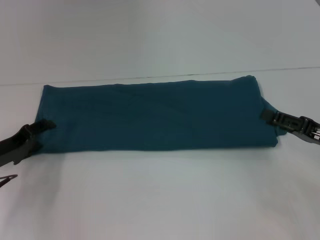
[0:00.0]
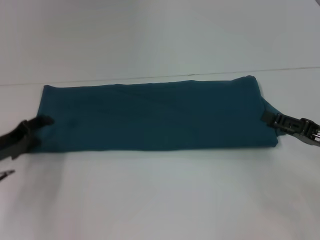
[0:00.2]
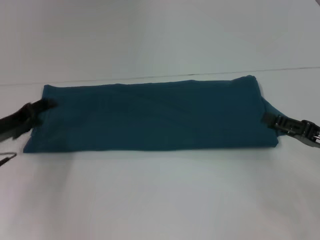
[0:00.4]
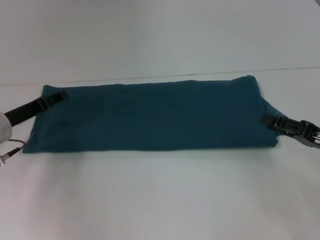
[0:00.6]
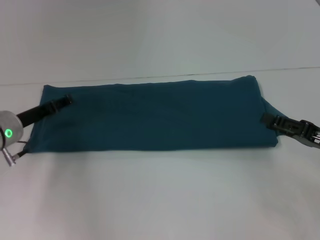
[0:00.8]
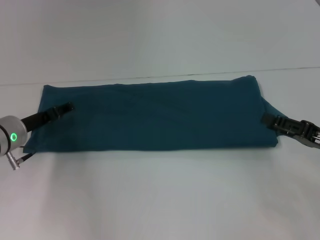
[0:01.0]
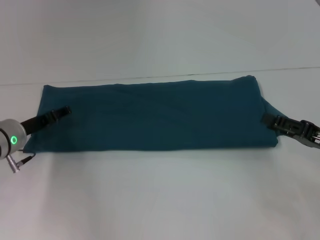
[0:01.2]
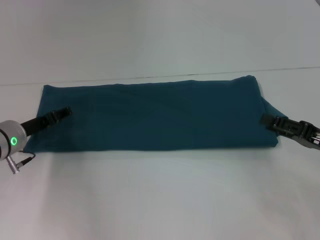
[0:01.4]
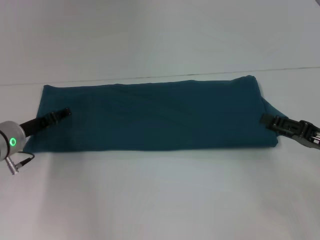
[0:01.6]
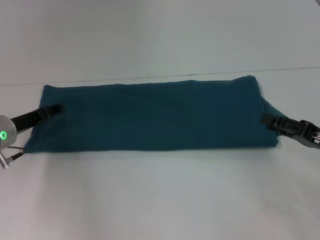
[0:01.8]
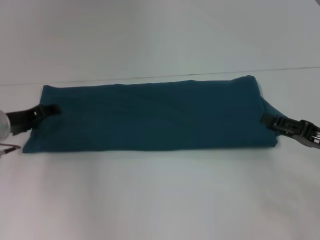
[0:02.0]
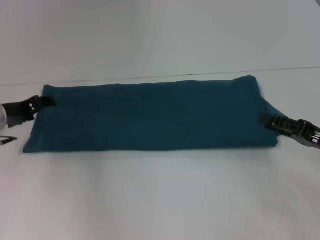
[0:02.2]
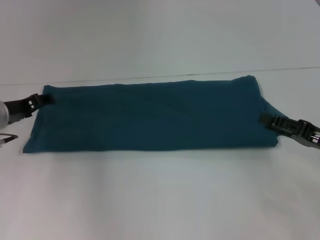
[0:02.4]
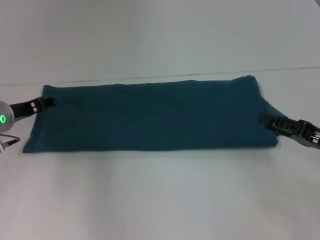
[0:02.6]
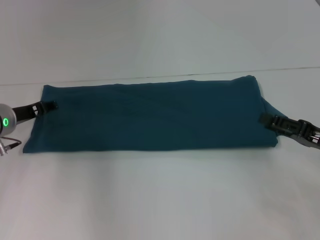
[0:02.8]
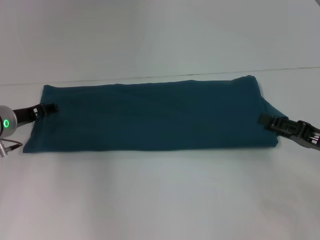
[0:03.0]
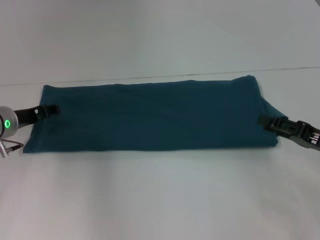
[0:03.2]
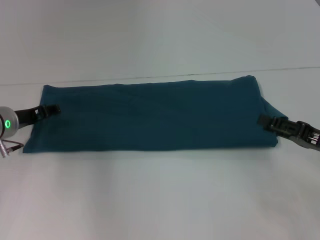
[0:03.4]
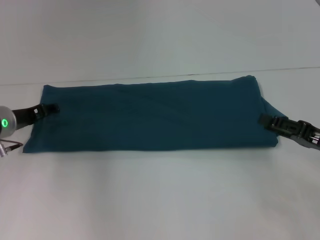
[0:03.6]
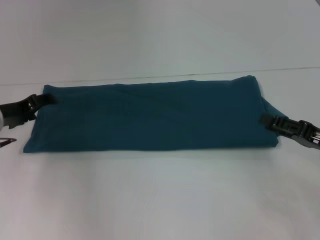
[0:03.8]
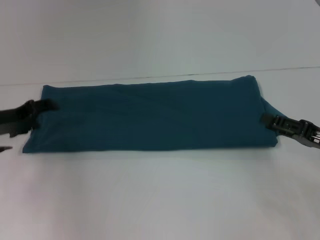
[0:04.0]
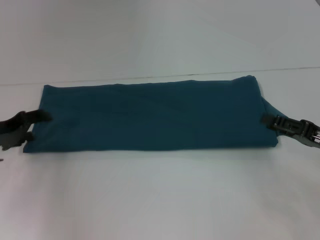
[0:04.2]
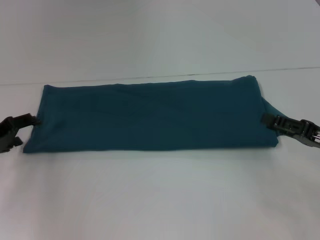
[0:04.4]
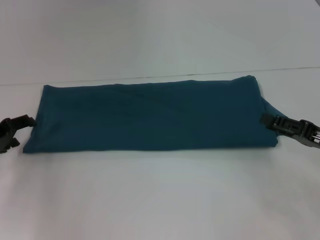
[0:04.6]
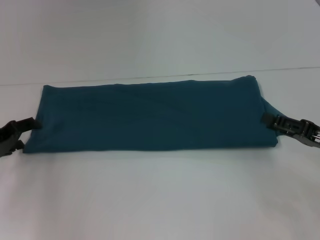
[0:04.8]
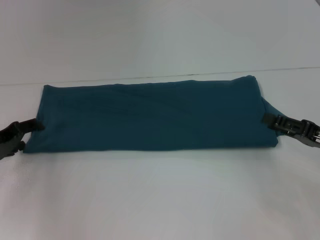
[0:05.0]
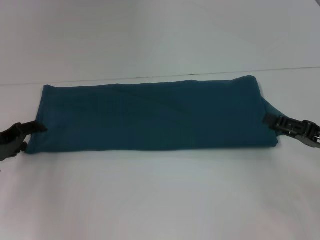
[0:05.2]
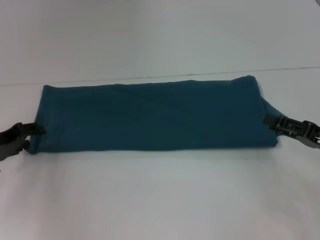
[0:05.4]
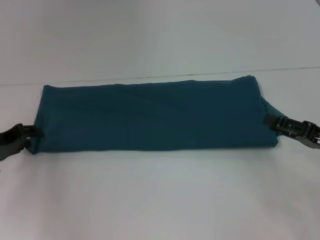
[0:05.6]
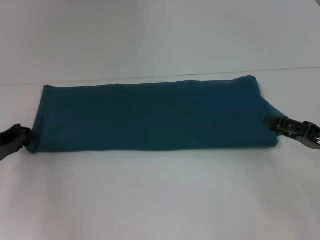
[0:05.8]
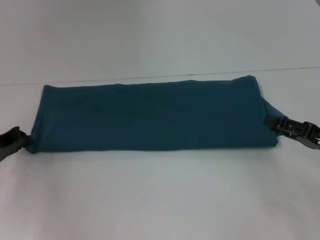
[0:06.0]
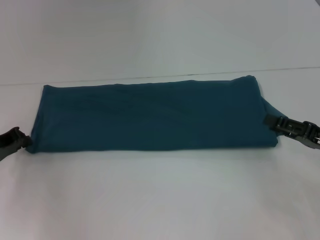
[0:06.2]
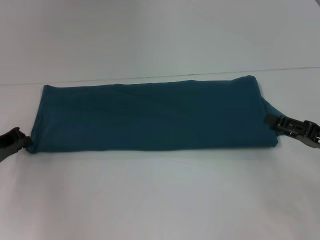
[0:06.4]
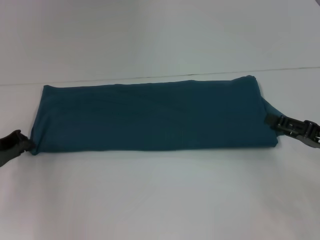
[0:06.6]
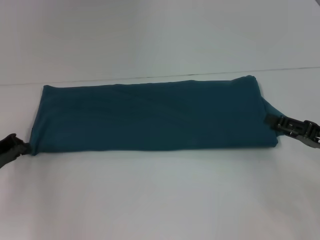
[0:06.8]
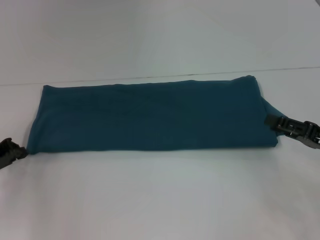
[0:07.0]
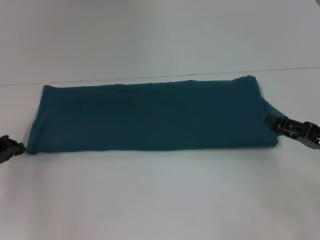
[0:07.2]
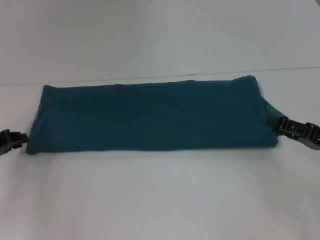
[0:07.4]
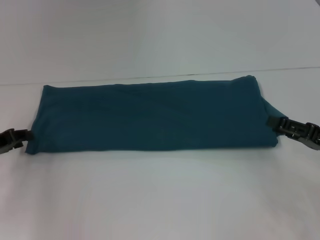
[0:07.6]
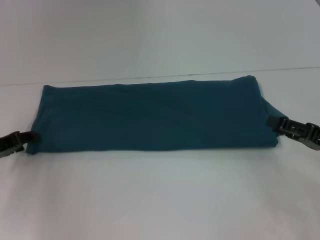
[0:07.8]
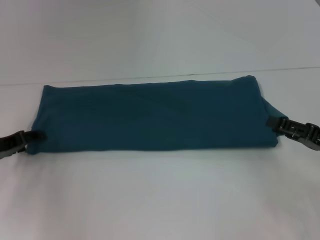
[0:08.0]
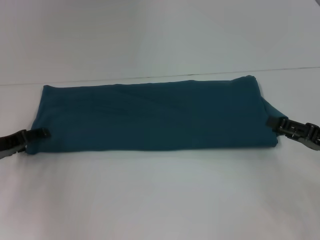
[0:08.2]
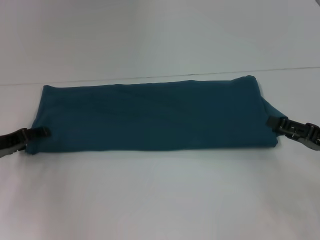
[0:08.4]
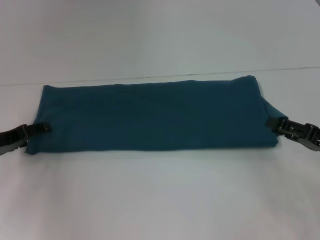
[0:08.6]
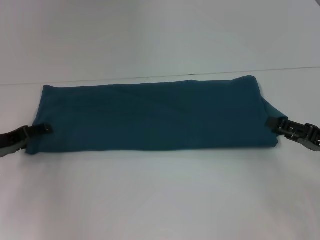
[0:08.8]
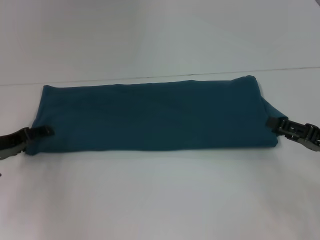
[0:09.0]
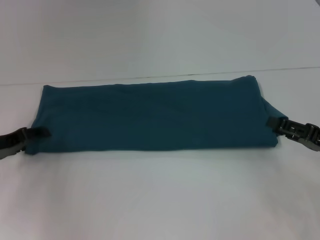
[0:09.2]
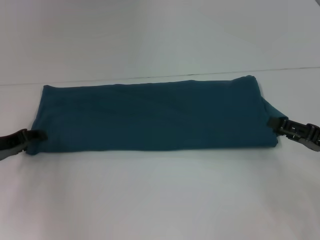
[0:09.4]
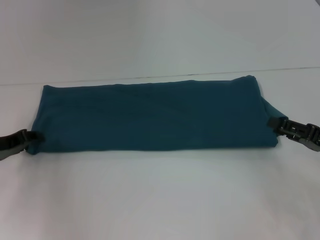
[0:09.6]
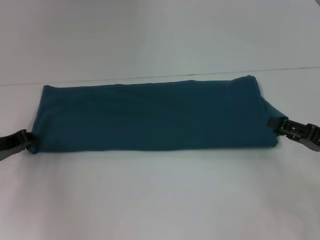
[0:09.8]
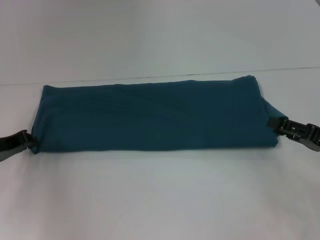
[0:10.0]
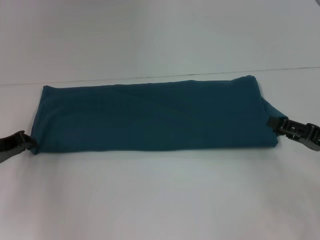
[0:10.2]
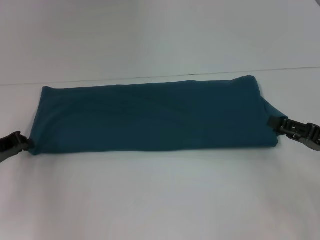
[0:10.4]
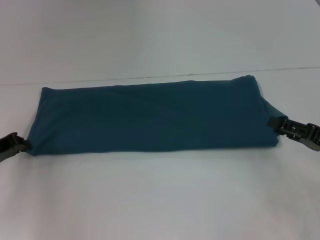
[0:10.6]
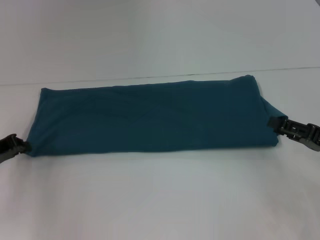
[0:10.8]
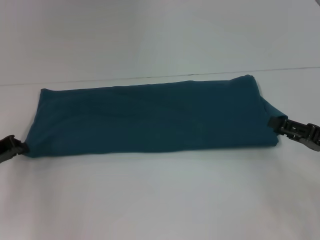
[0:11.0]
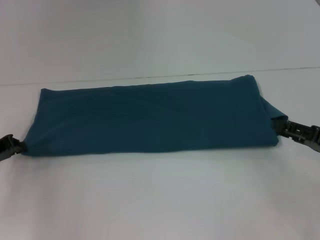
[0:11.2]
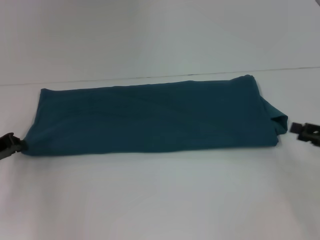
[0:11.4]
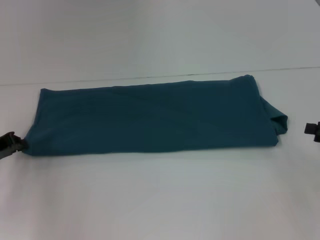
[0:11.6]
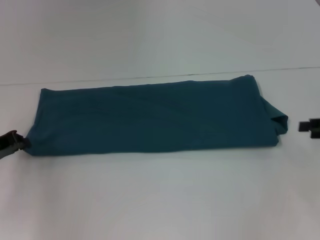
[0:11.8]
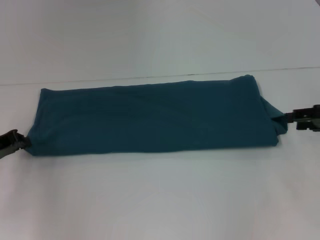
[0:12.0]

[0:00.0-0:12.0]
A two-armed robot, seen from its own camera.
0:00.0 to 0:01.6: The left gripper changes place by approximately 5 cm.
0:01.6 to 0:03.0: There are only small adjustments of the grippers.
0:03.0 to 0:04.4: The left gripper travels to the left and backward by some 10 cm.
0:04.4 to 0:06.0: The left gripper closes up.
0:07.6 to 0:09.0: The left gripper opens its fingers.
0:09.0 to 0:10.4: The left gripper closes.
0:10.4 to 0:12.0: The right gripper shifts some 5 cm forward.

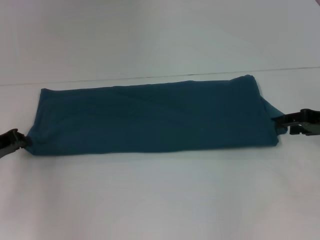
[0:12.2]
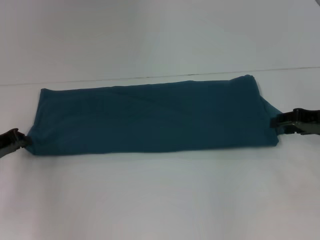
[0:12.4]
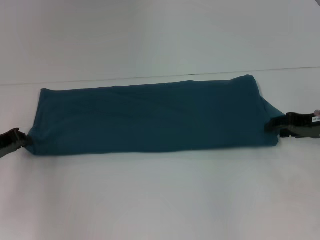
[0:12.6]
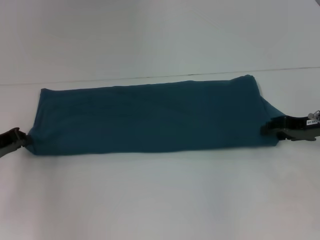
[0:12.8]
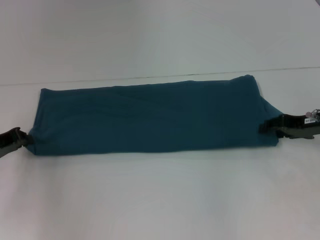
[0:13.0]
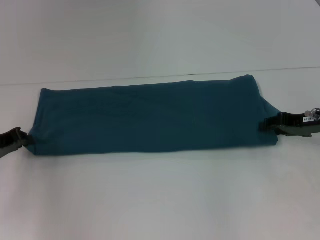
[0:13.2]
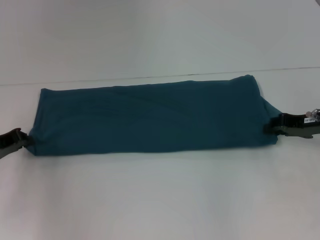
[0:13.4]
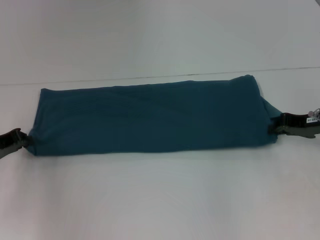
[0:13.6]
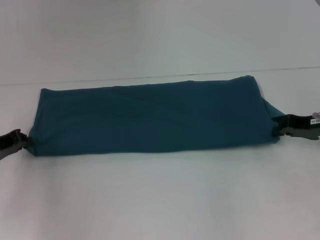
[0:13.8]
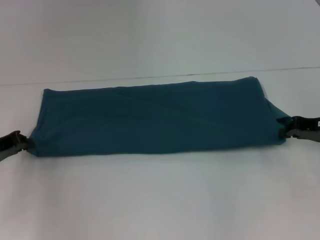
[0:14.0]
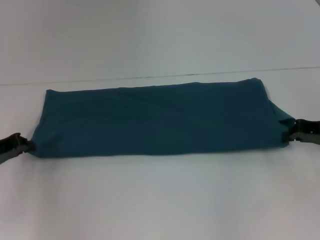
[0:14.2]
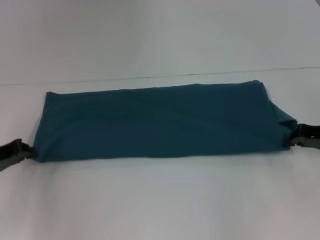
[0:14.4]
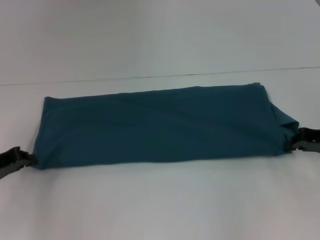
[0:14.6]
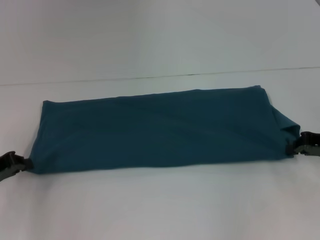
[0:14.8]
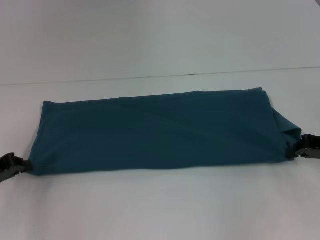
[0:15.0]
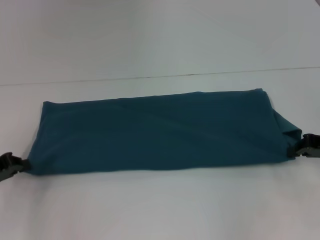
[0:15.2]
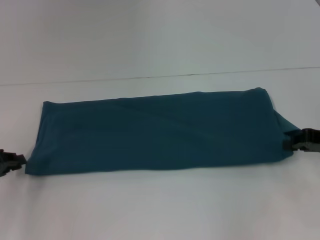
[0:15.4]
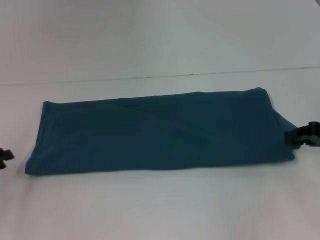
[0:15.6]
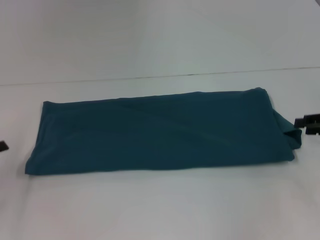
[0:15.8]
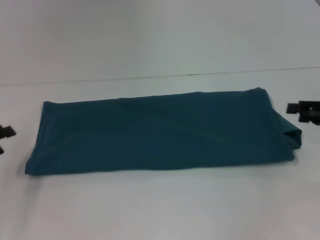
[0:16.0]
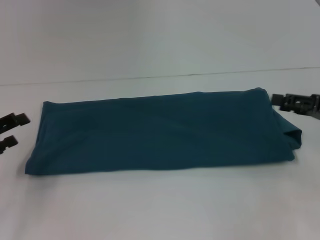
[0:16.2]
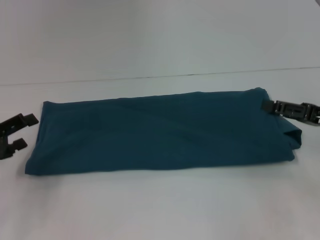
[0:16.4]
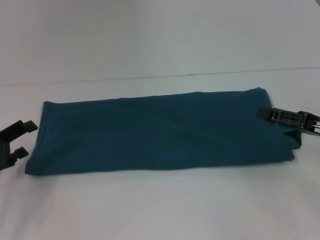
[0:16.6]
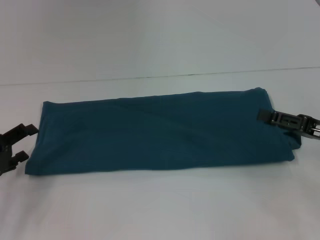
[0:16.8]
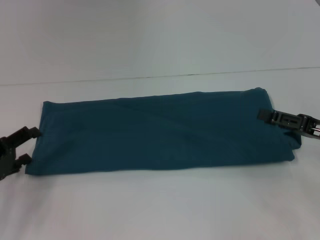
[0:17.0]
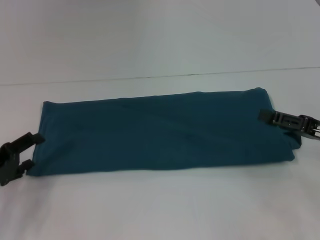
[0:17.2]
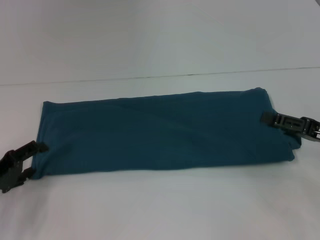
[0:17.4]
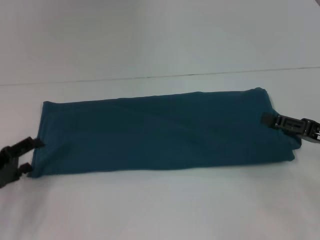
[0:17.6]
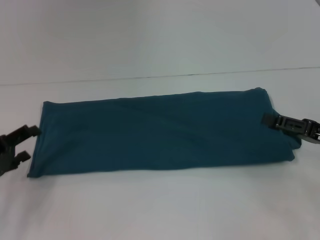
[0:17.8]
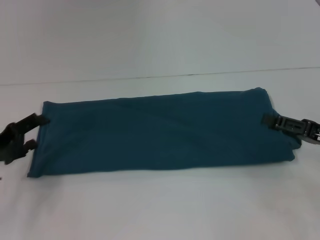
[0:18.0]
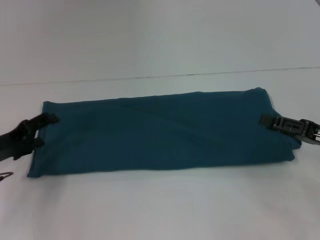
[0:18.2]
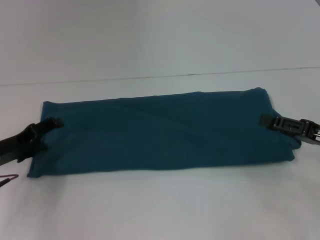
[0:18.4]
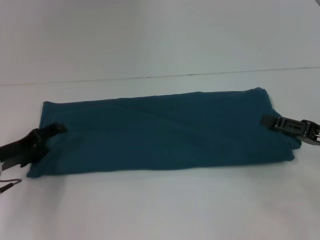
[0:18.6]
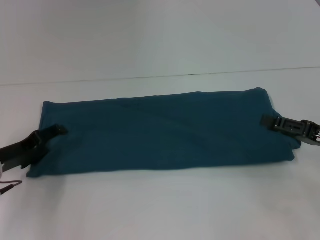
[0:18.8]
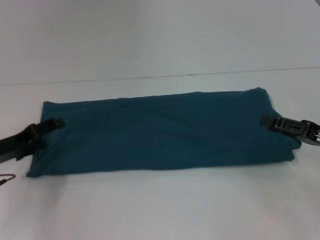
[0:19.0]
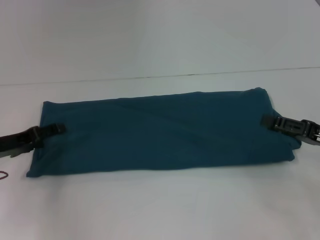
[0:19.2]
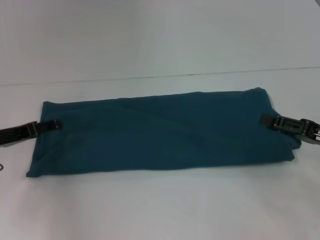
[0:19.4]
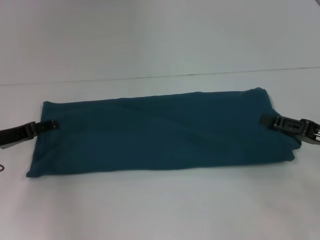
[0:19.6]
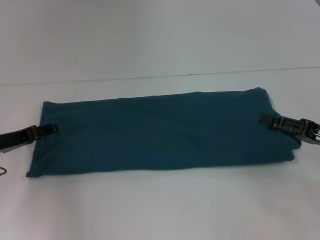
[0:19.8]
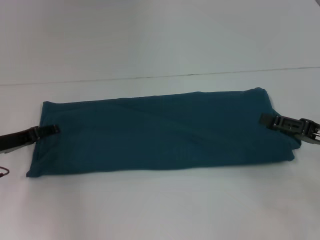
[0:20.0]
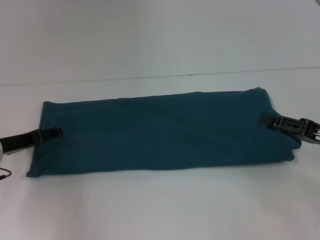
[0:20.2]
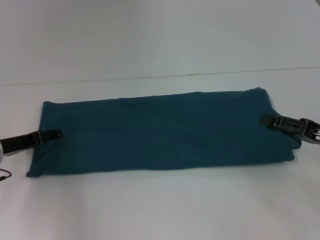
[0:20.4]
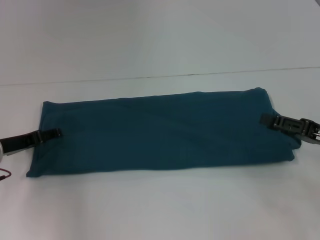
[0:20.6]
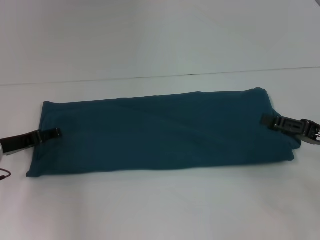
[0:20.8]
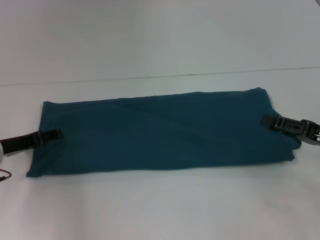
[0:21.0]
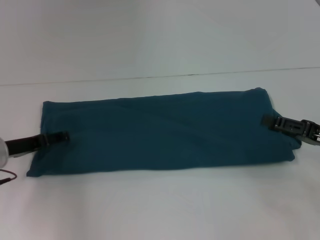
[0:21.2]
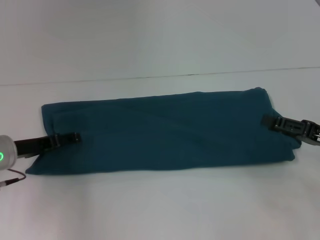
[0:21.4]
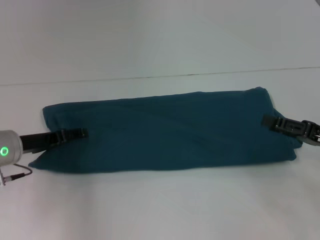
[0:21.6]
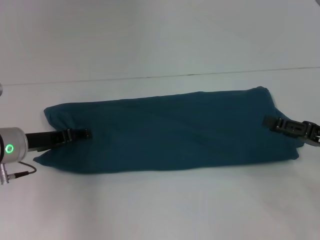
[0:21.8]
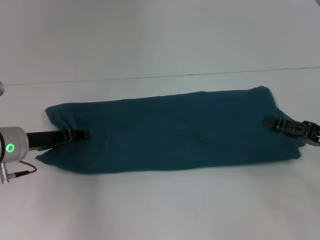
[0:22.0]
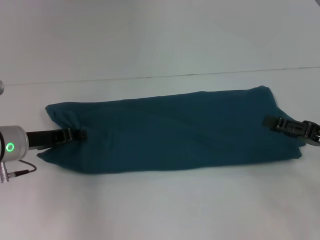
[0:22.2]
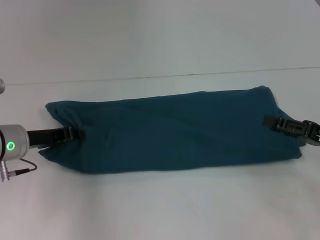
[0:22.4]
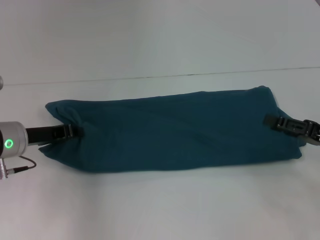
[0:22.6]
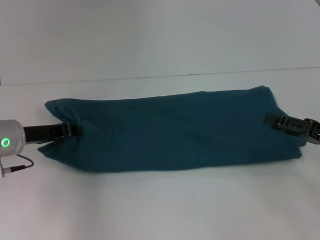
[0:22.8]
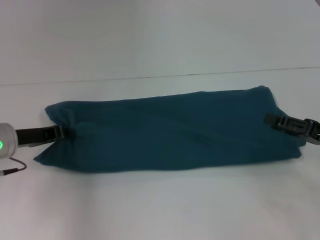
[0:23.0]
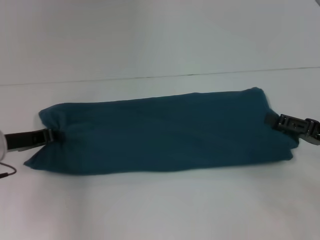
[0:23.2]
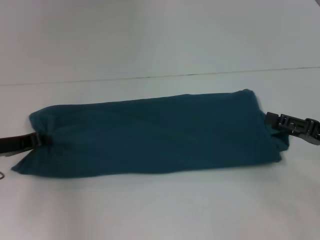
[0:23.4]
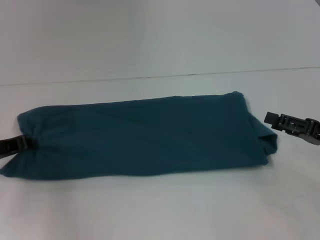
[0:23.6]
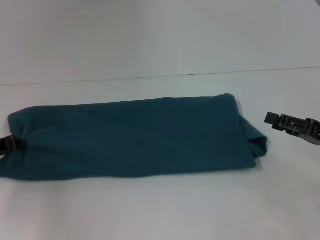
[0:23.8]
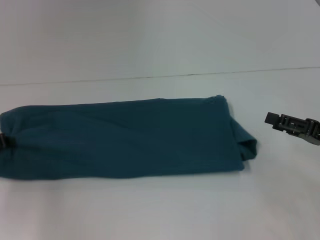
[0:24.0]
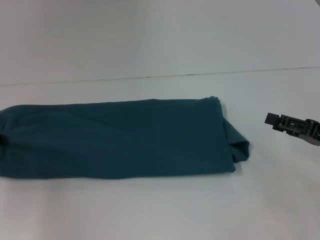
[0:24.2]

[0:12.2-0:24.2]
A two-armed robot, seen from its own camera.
0:12.2 to 0:13.8: The right gripper closes its fingers.
0:13.8 to 0:15.2: The grippers move only a little.
0:15.2 to 0:16.6: The left gripper opens its fingers. The right gripper opens up.
0:16.6 to 0:18.2: The left gripper shifts by some 5 cm.
0:19.8 to 0:21.2: There are only small adjustments of the grippers.
0:21.2 to 0:22.6: The left gripper closes its fingers.
0:22.6 to 0:24.2: The left gripper travels to the left by roughly 10 cm.
